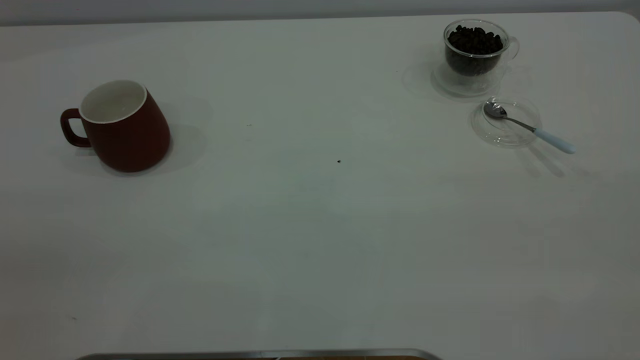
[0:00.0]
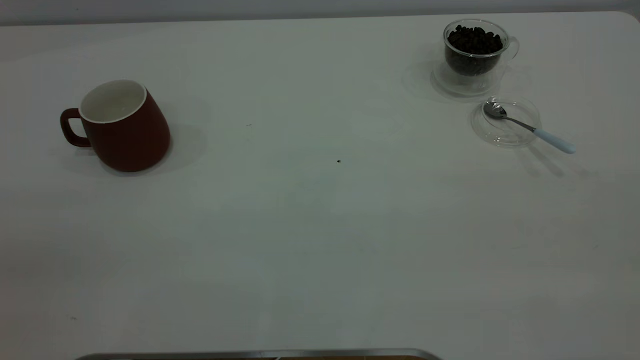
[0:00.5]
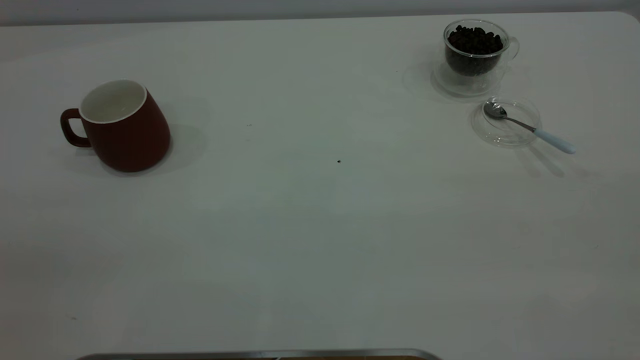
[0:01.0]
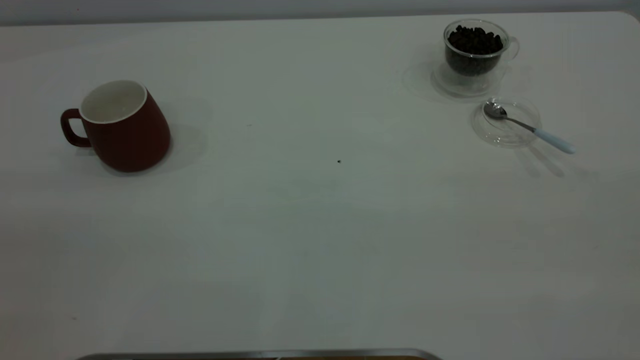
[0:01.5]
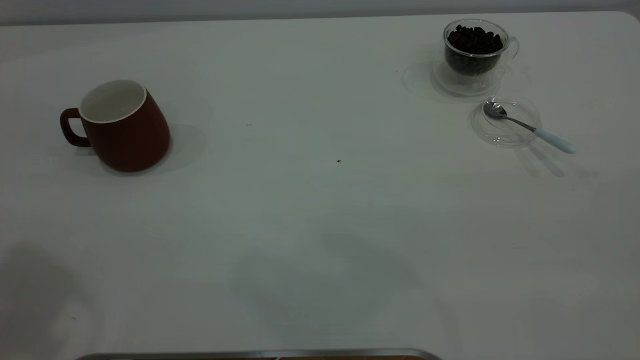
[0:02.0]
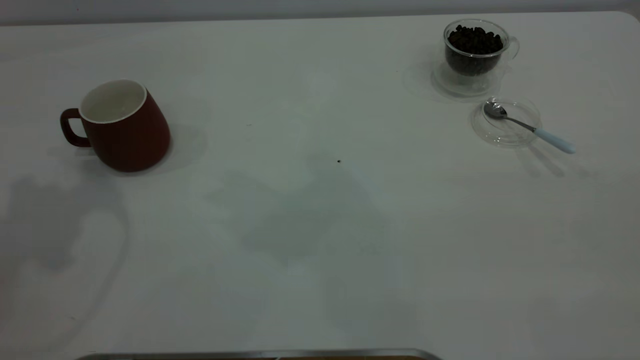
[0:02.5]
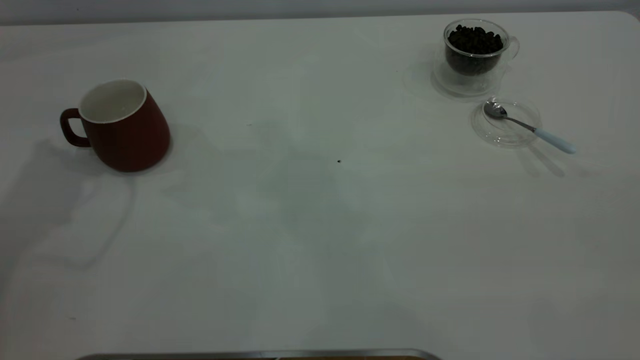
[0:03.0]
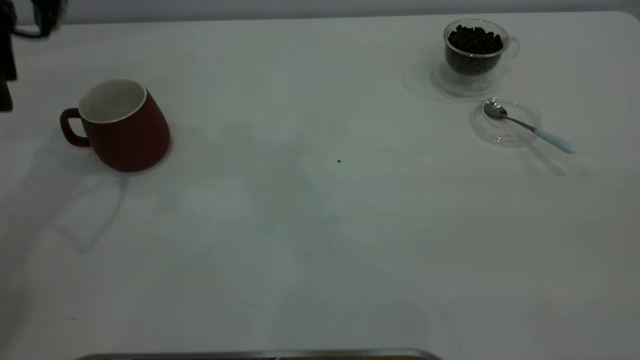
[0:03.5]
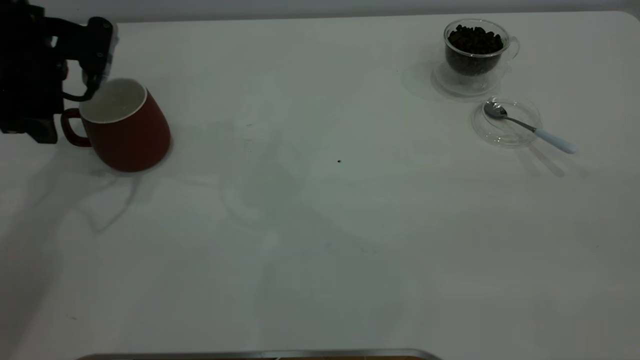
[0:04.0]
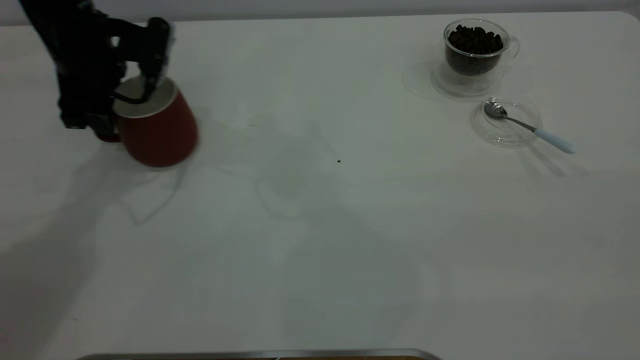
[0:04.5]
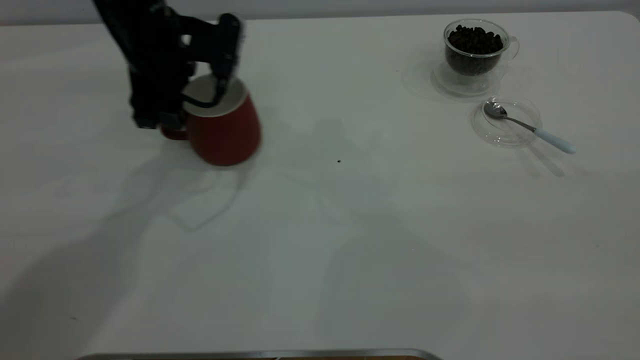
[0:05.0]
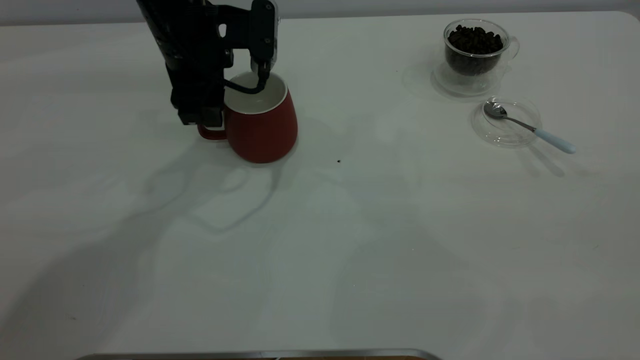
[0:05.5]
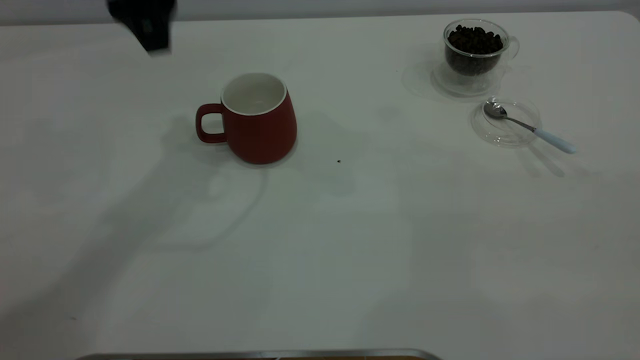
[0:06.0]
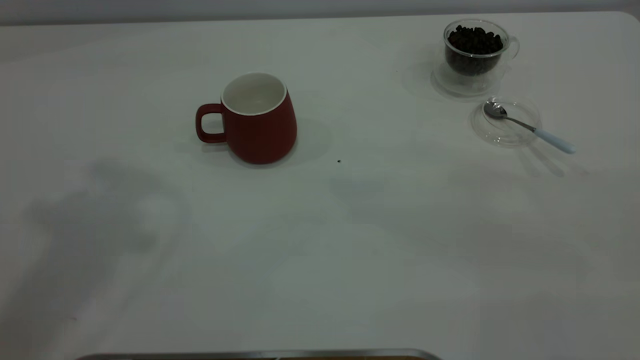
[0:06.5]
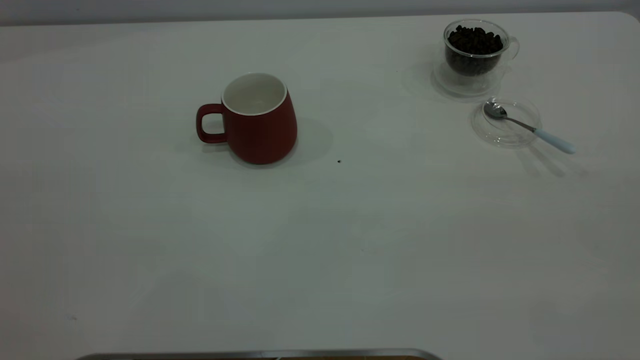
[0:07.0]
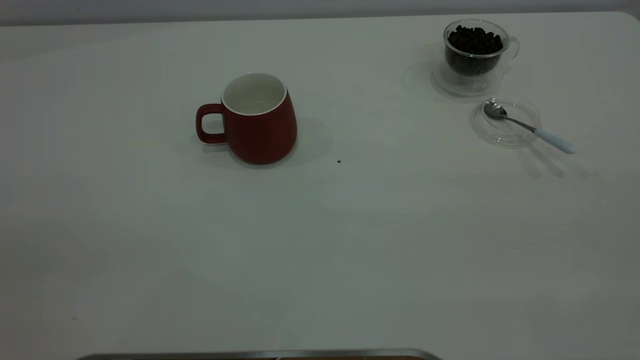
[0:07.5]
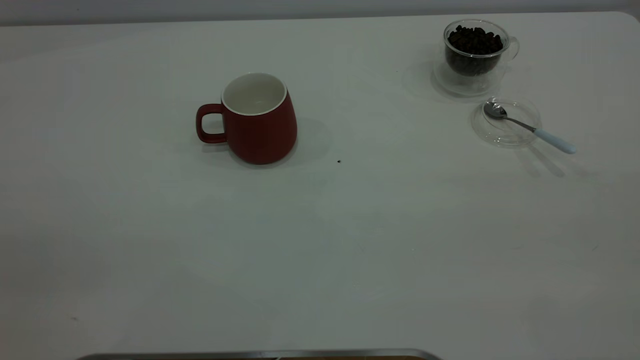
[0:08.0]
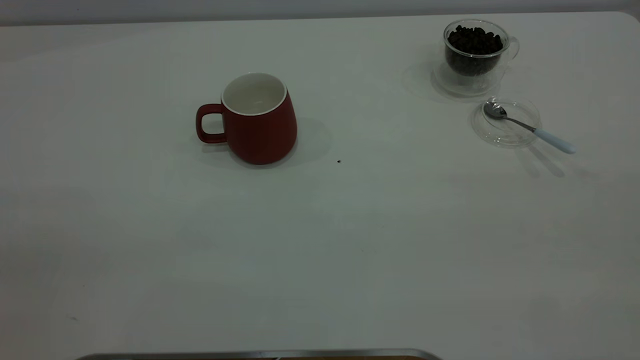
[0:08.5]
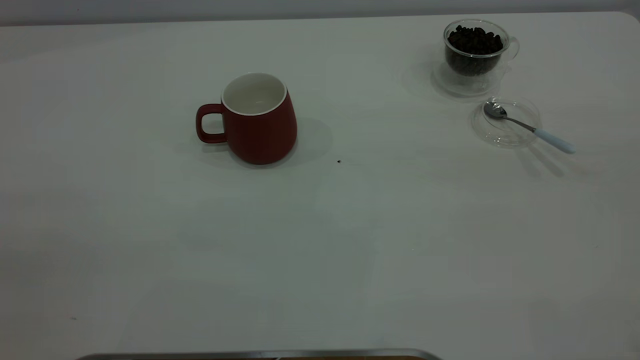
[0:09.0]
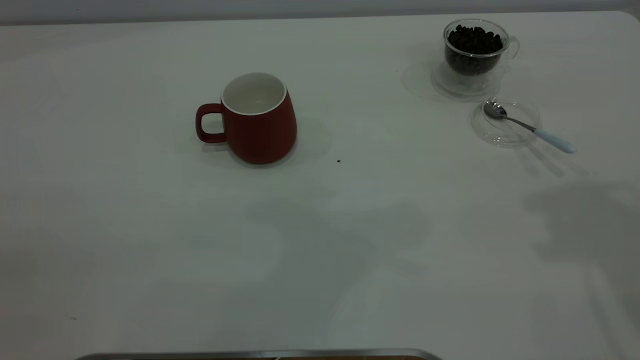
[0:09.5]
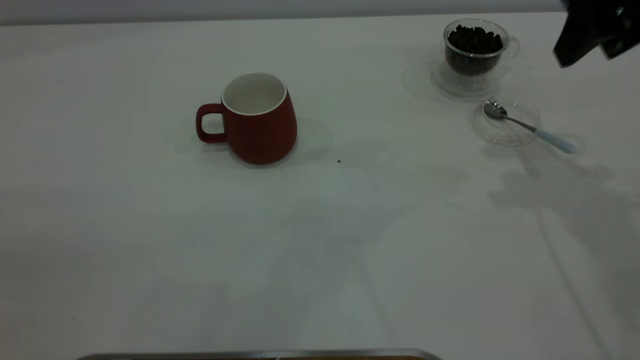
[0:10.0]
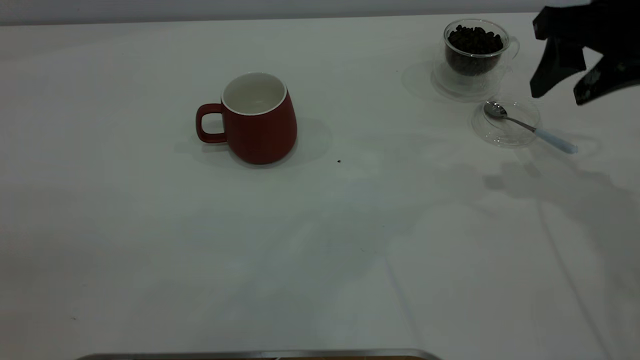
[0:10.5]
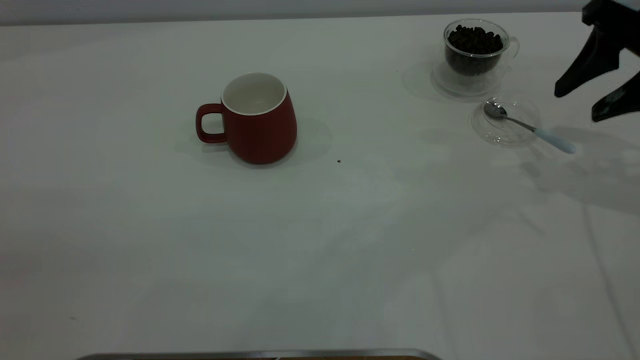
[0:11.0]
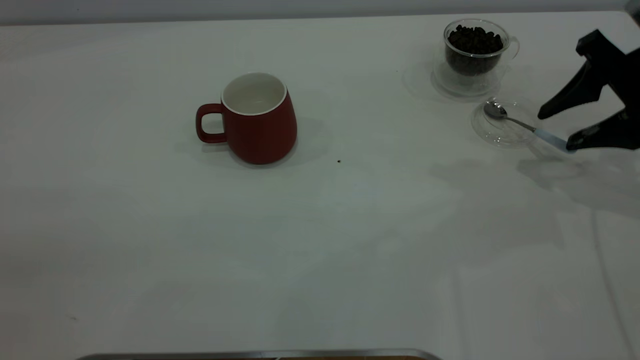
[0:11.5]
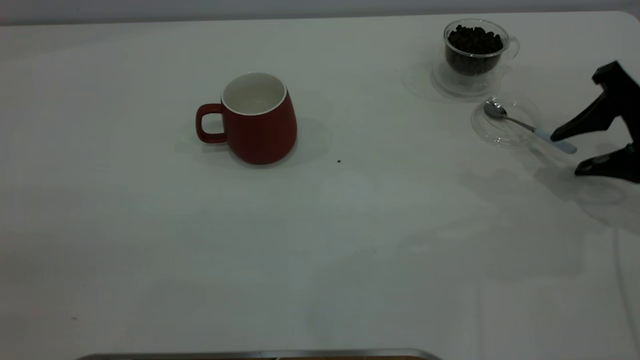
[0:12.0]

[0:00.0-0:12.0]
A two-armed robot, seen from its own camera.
Task of the whole recording: the left gripper place the red cup in the center of the table, the right gripper take the blue spoon from the cup lid and scoop out the coffee beans from the coffee cup and put them into the red cup, the right gripper put the spoon back into the cup lid.
Step, 0:00.0 to 0:05.5: Move the cup to the center of view.
0:02.0 to 0:04.0: The left gripper travels downward and forward by roughly 35 cm.
0:04.0 to 0:06.0: The left gripper shifts roughly 20 cm to the right and upward.
0:06.0 to 0:08.0: The left gripper is displaced backward and to the left by some 40 cm.
0:08.0 to 0:10.0: The right gripper goes about 35 cm forward, and opens its fingers.
0:10.0 to 0:12.0: The right gripper moves downward and to the right, roughly 15 cm.

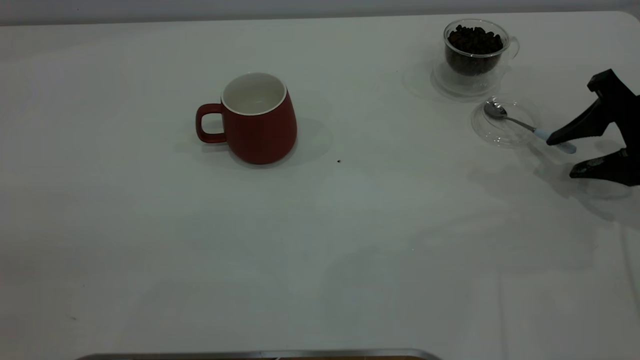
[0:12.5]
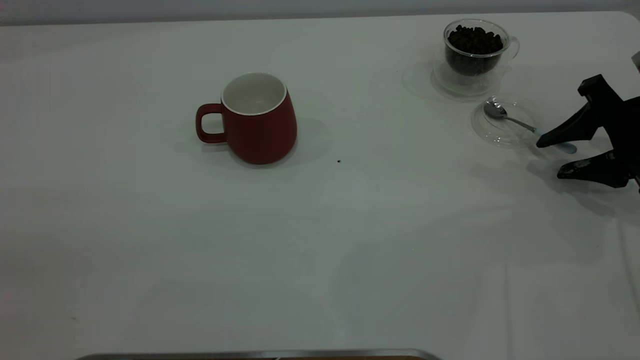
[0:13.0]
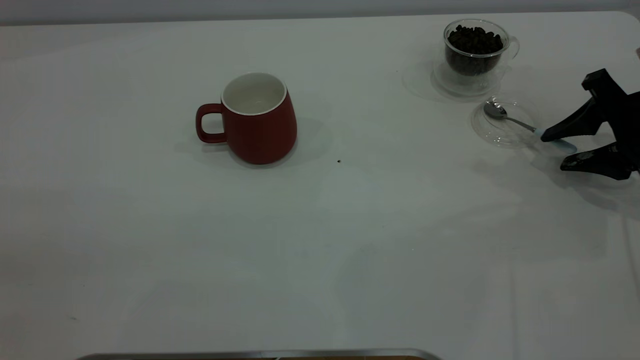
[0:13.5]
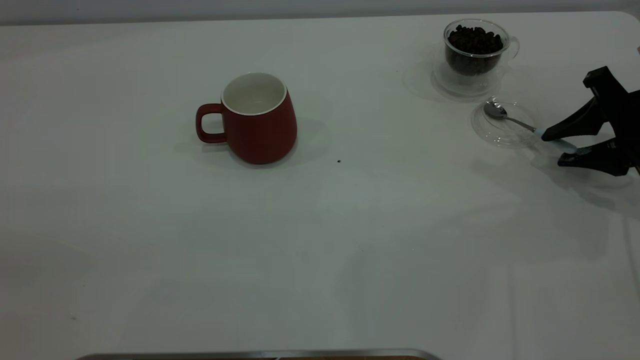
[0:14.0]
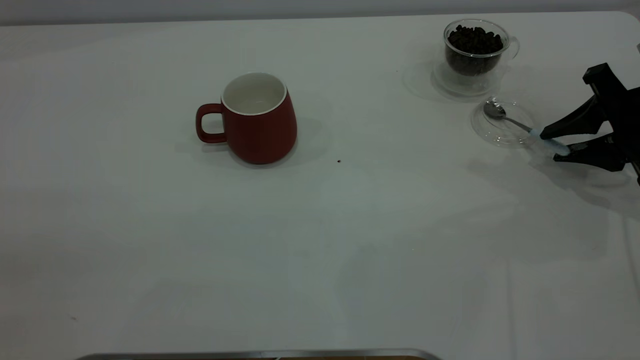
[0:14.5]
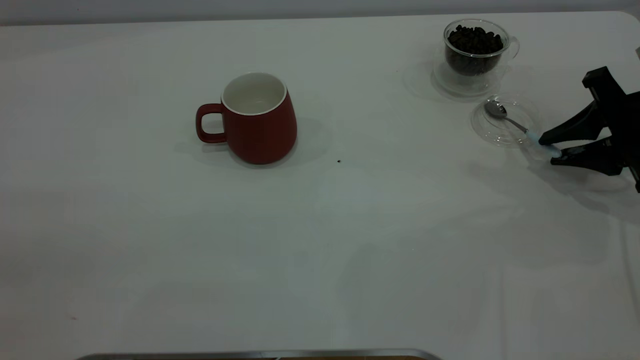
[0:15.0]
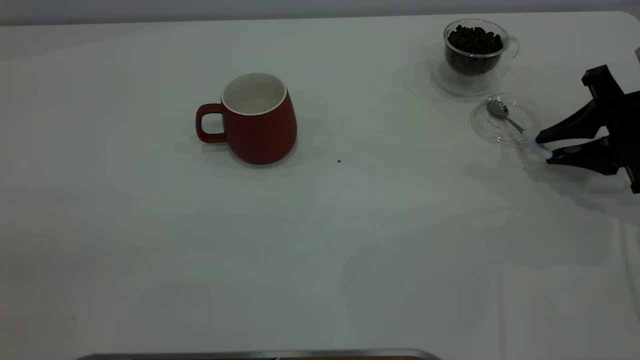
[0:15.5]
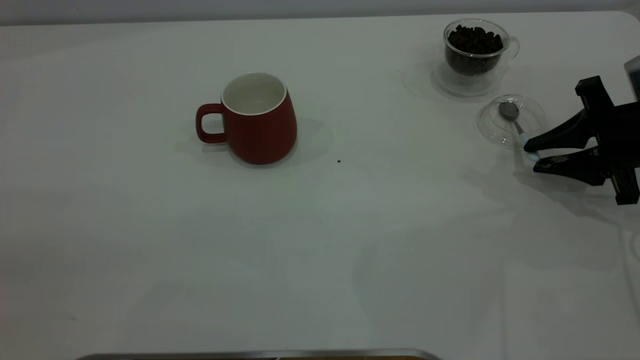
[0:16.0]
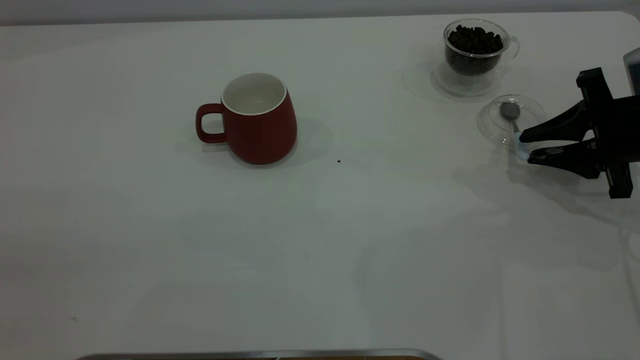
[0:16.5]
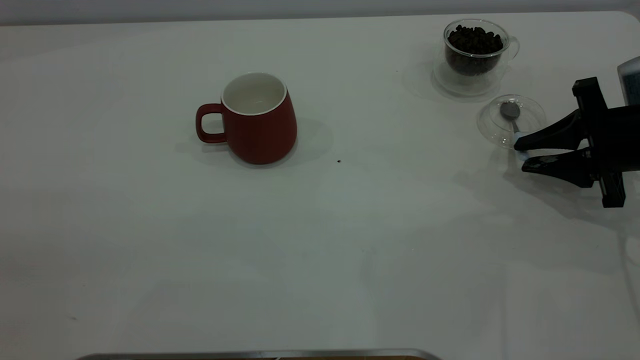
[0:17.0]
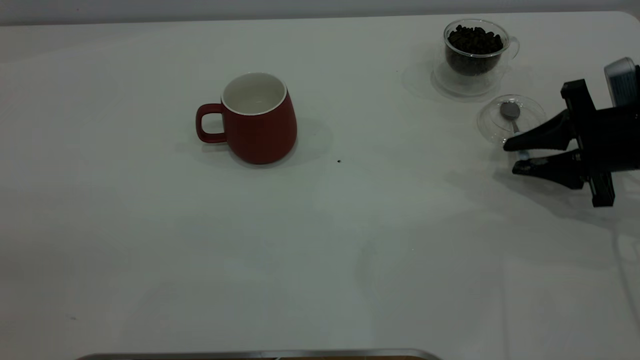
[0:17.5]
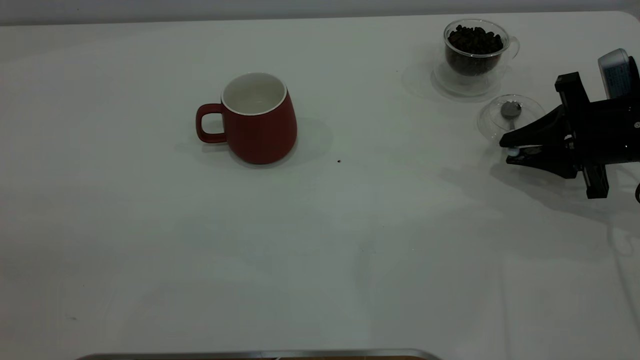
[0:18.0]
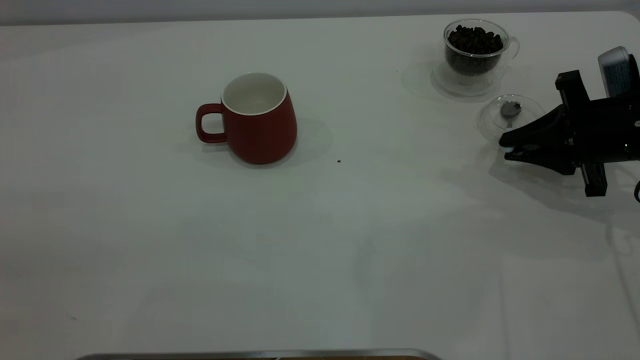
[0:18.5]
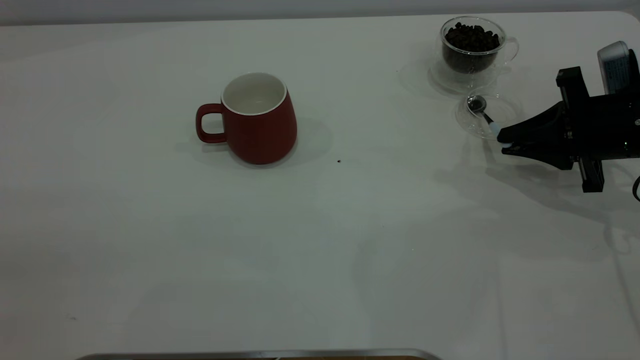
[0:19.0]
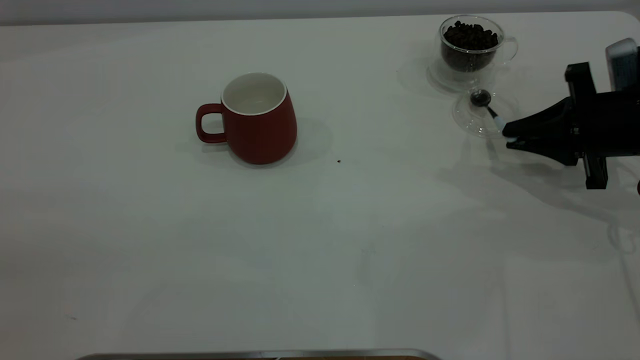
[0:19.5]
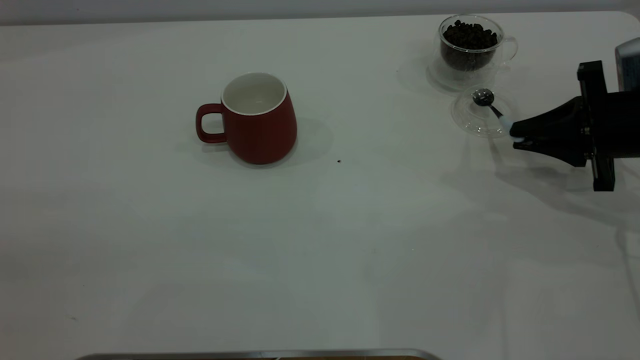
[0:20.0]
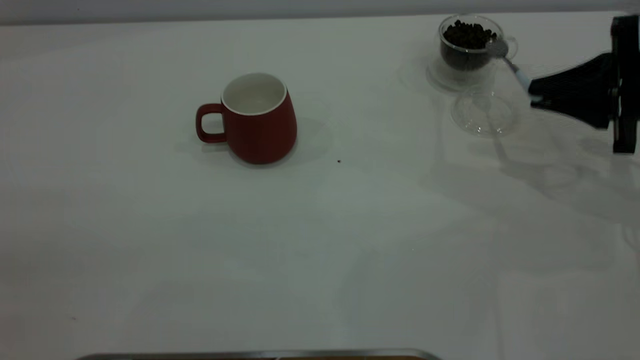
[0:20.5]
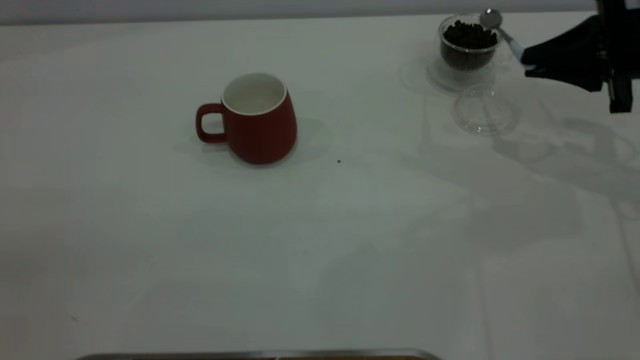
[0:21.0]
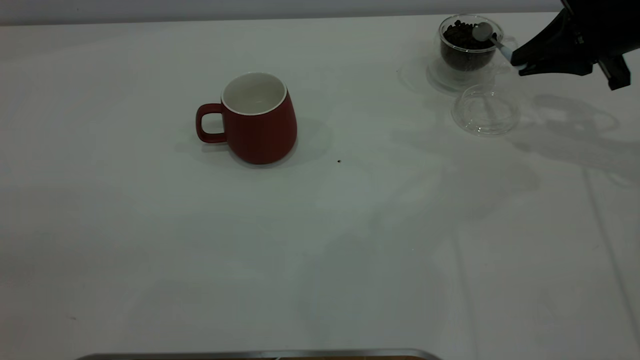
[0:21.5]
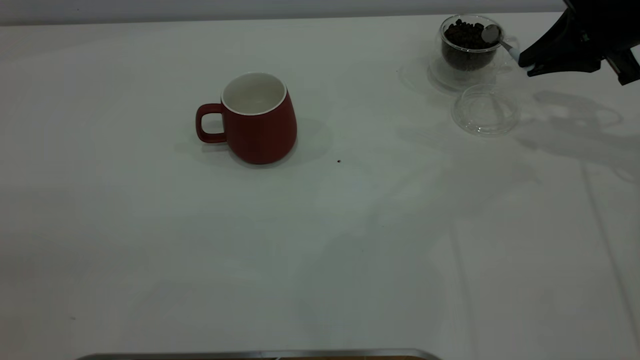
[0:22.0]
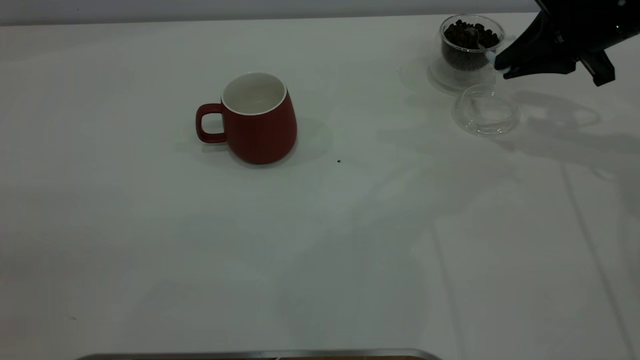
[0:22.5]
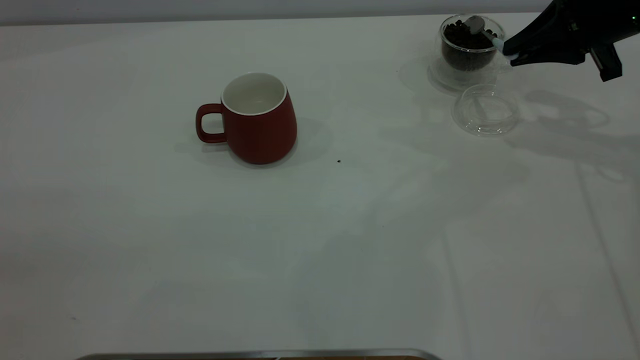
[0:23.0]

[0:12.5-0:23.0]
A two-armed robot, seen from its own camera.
Task of the whole recording: the left gripper place the red cup in the center of the table, the right gripper take the blue spoon from the cup lid and scoop out the coffee beans from the coffee cup and put them into the red cup, the right gripper put the spoon back into the cup lid.
Step, 0:12.5 to 0:20.0: Pick up the spoon.
0:12.5 to 0:14.5: The right gripper closes up.
0:14.5 to 0:16.5: There are only small adjustments of the grippers.
0:16.5 to 0:19.0: The right gripper closes its fingers.
0:19.0 to 0:21.0: The right gripper goes roughly 10 cm upward.
0:21.0 to 0:23.0: The right gripper moves some 5 cm.
